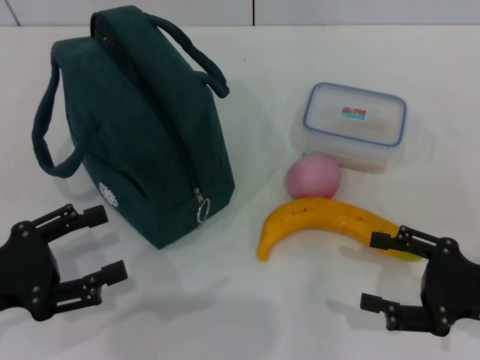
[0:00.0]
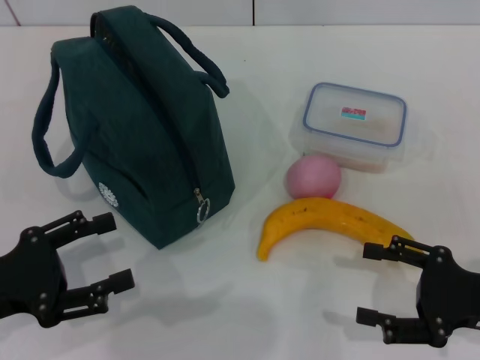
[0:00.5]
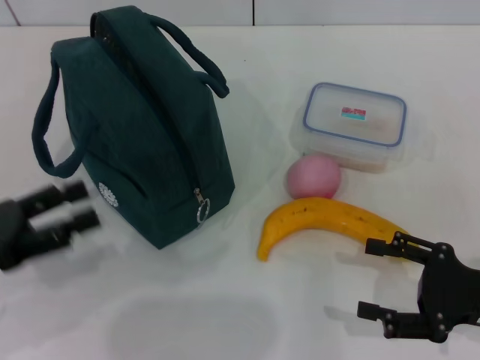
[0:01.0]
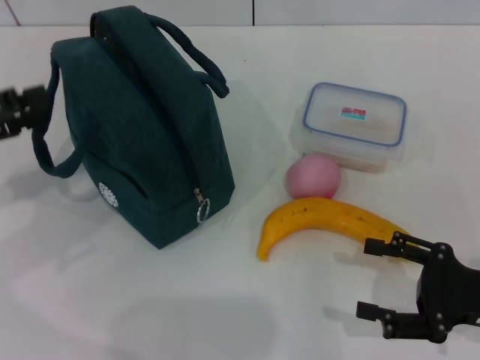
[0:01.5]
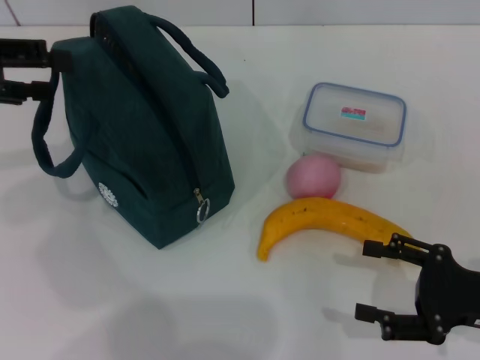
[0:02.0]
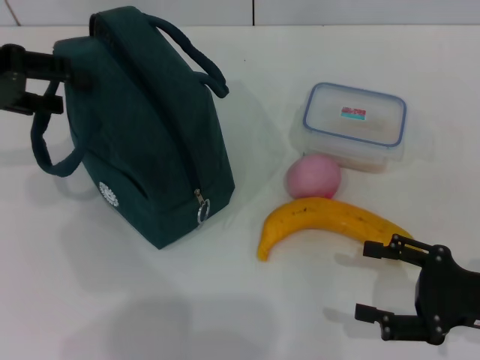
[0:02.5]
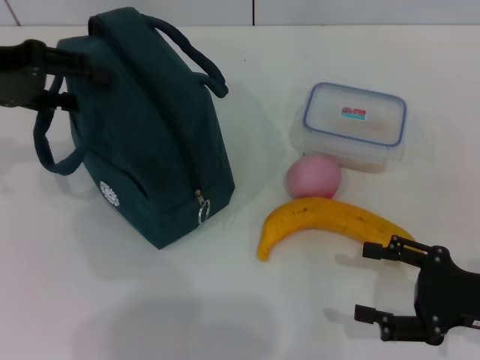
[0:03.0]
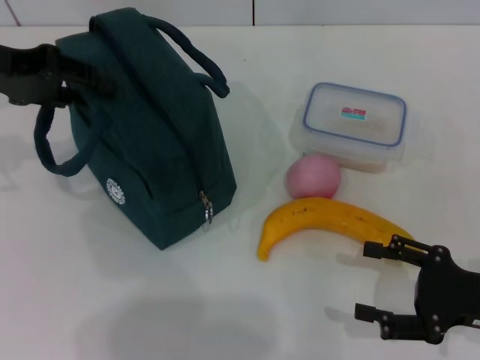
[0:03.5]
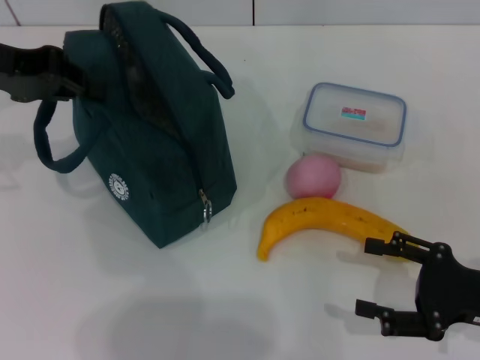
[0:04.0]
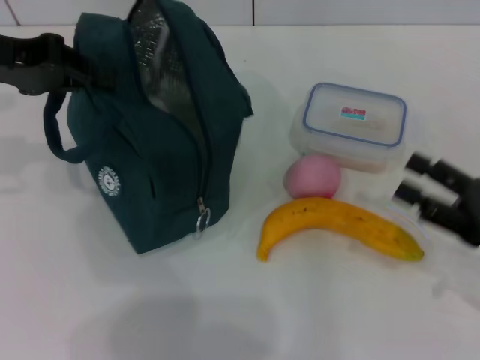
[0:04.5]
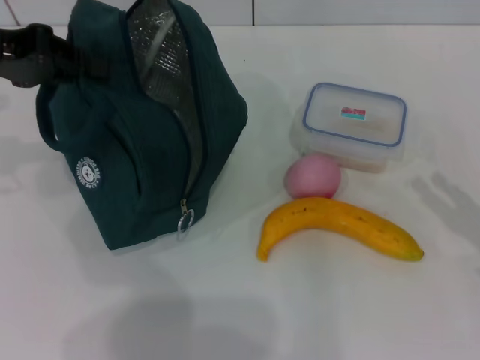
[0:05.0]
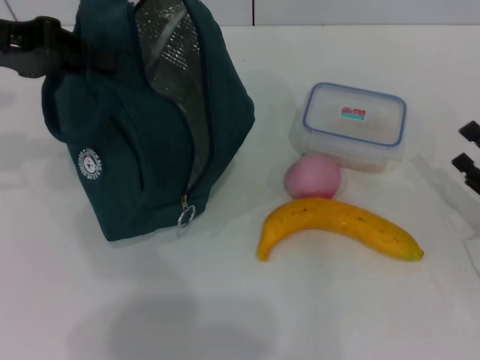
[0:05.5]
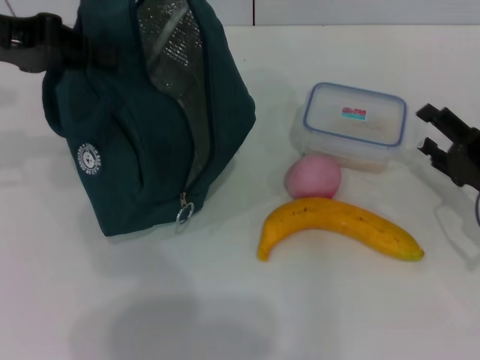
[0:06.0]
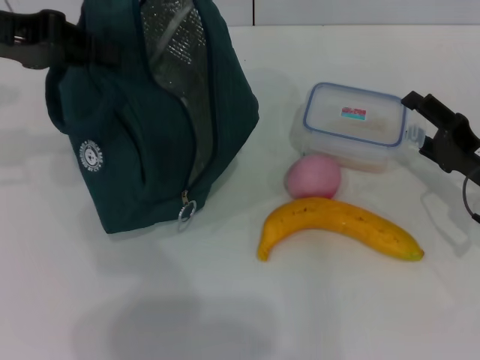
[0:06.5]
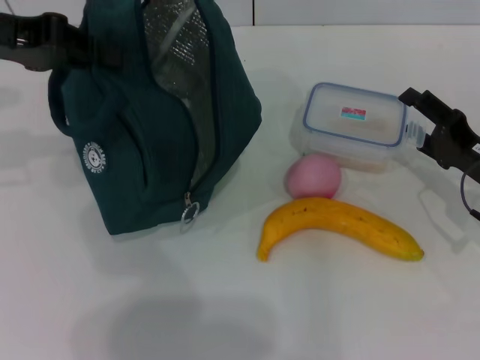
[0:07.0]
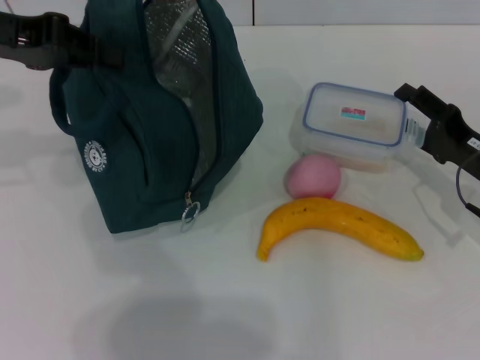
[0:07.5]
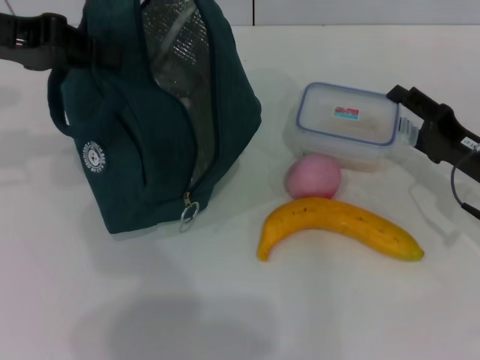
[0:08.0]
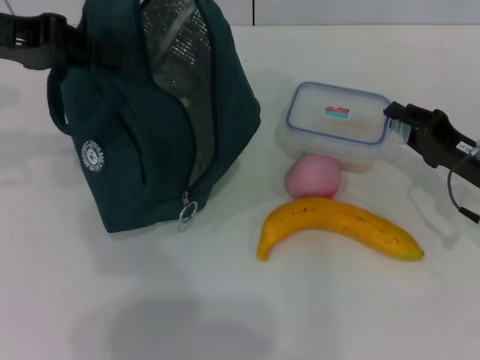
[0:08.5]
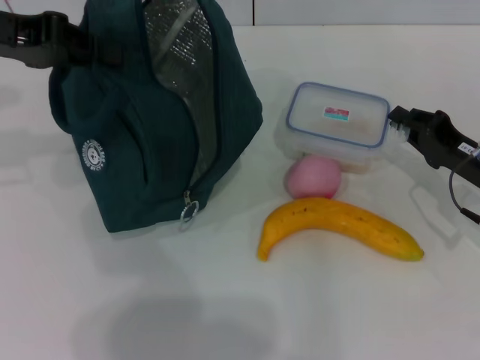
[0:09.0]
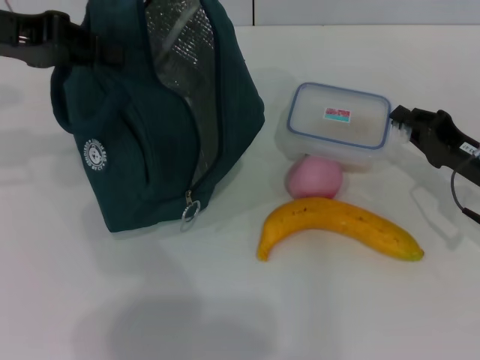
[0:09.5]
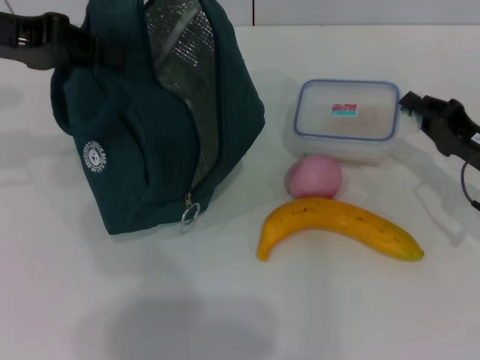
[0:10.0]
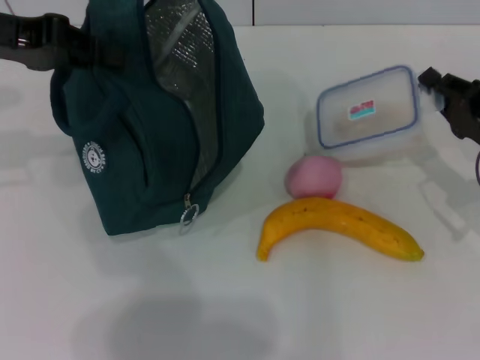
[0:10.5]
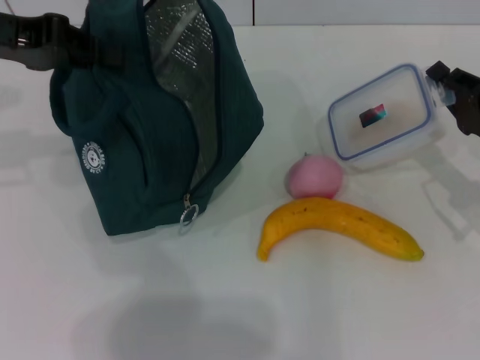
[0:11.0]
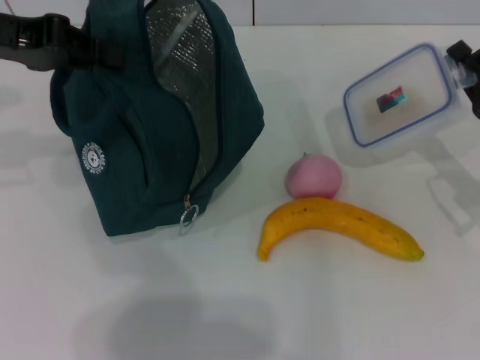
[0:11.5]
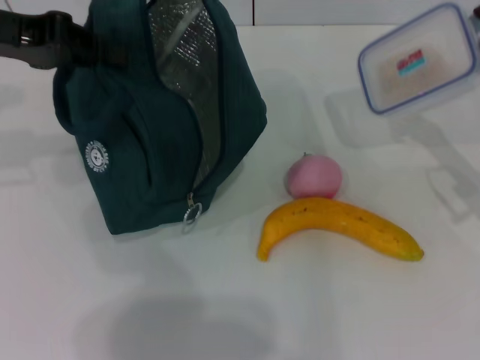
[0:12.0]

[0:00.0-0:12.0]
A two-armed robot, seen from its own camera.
Step, 0:00.0 to 0:04.0: Hold the lunch bag with your left hand.
Step, 0:04.5 to 0:08.5: Pick up the lunch box with your right hand.
0:00.0 to 0:02.0: The left gripper heads forward and upward, covering some 20 cm.
0:02.0 to 0:04.0: The left gripper changes place by about 5 cm, and closes up.
0:04.0 to 0:06.0: The right gripper is displaced forward by about 10 cm.
0:06.0 to 0:08.0: The grippers make only small movements.
0:08.0 to 0:10.0: The right gripper closes up.

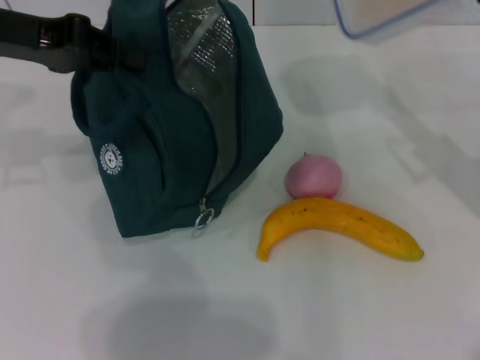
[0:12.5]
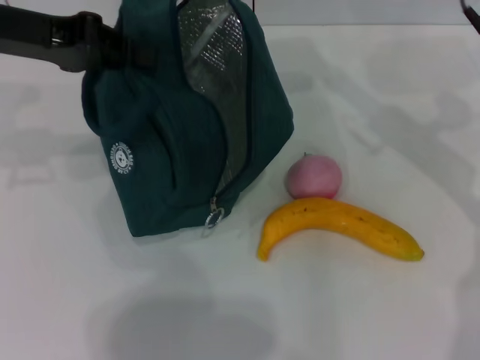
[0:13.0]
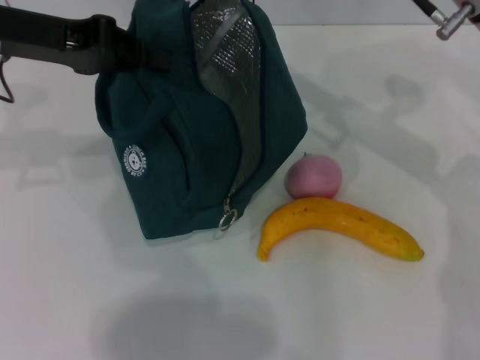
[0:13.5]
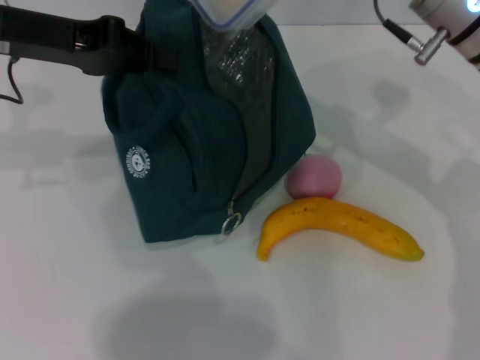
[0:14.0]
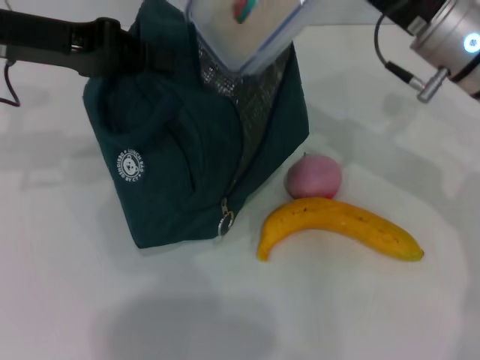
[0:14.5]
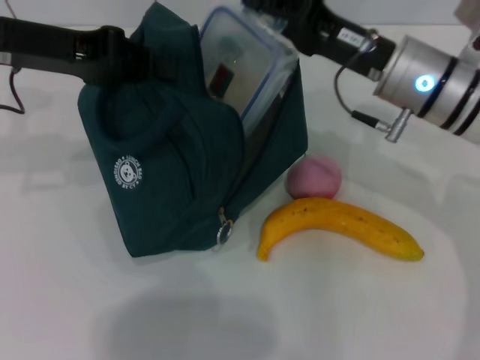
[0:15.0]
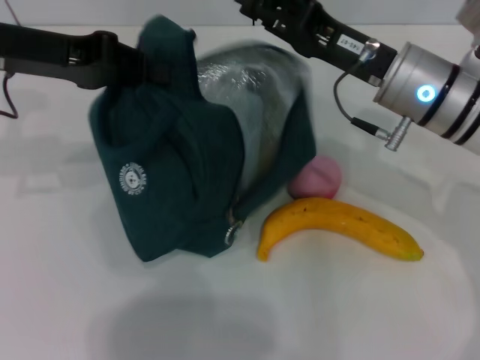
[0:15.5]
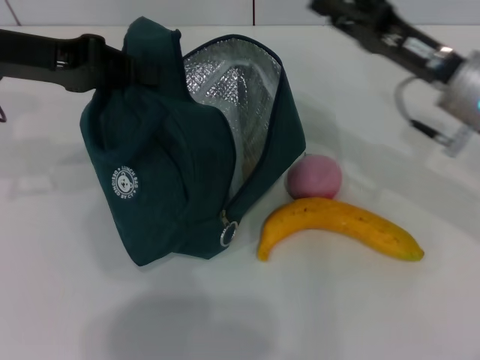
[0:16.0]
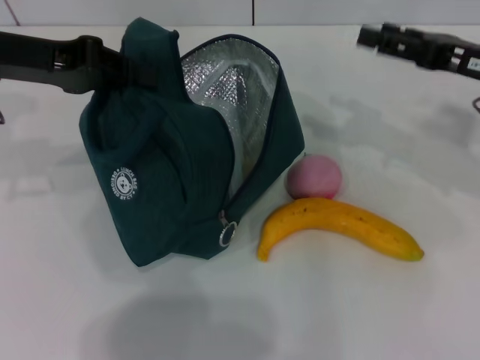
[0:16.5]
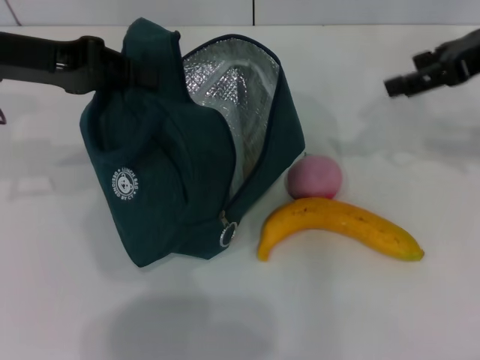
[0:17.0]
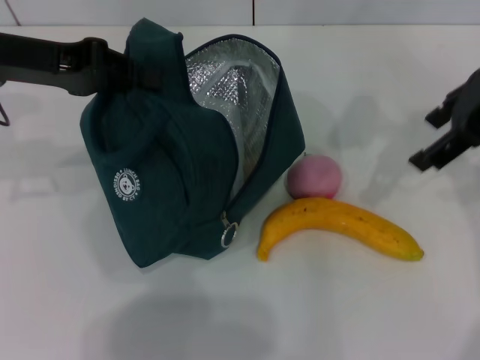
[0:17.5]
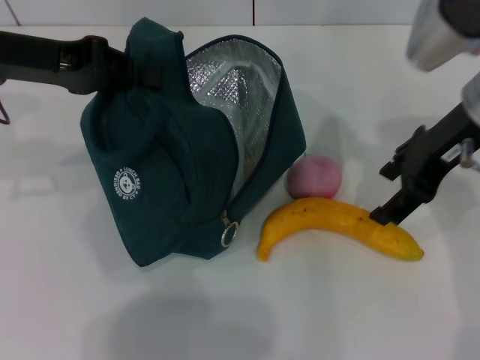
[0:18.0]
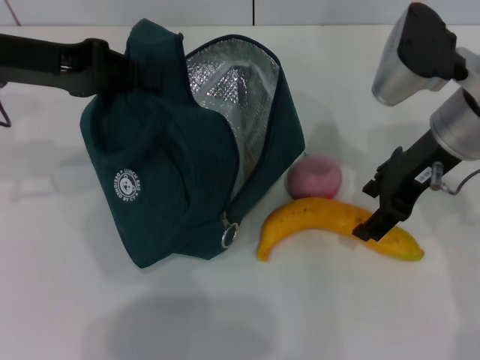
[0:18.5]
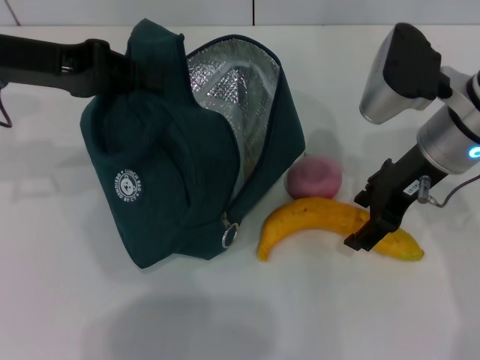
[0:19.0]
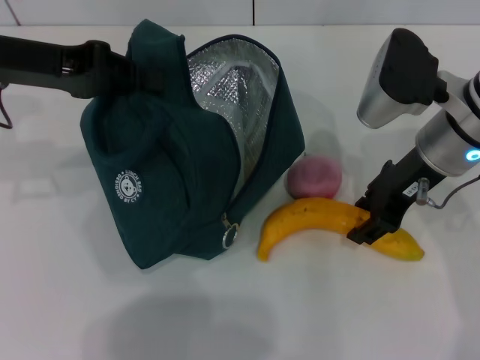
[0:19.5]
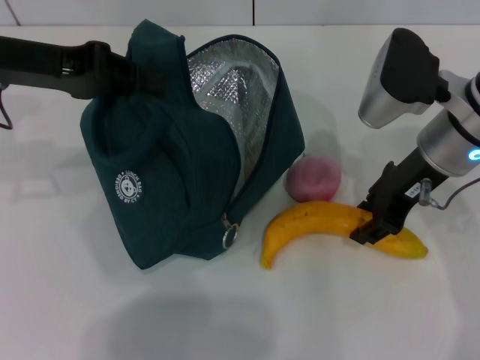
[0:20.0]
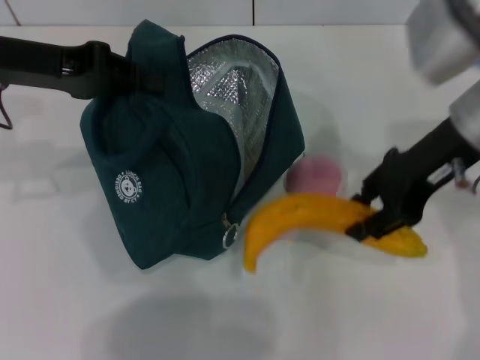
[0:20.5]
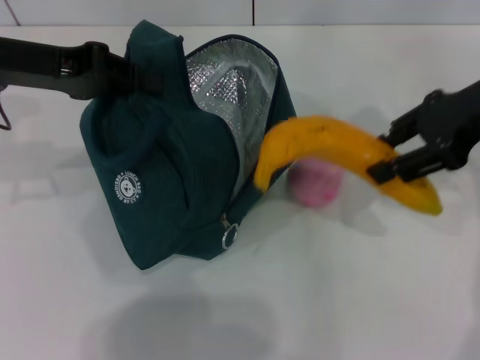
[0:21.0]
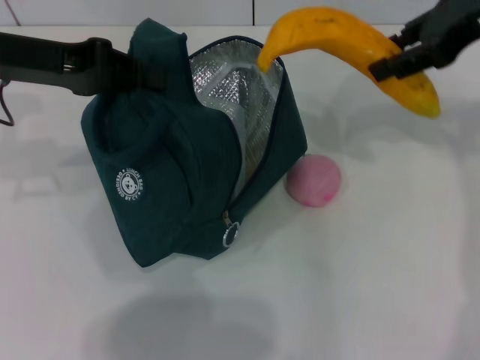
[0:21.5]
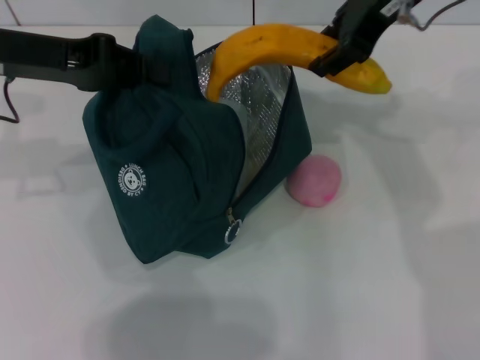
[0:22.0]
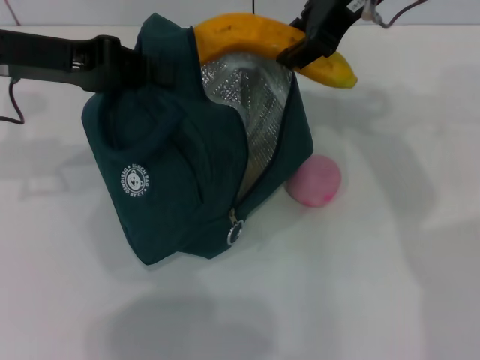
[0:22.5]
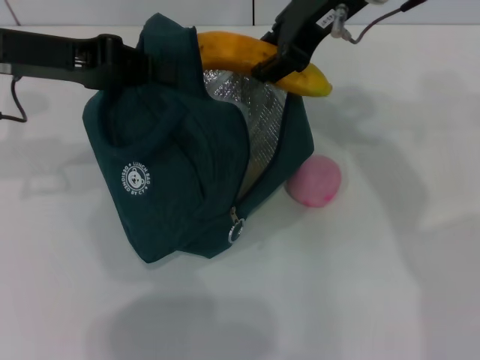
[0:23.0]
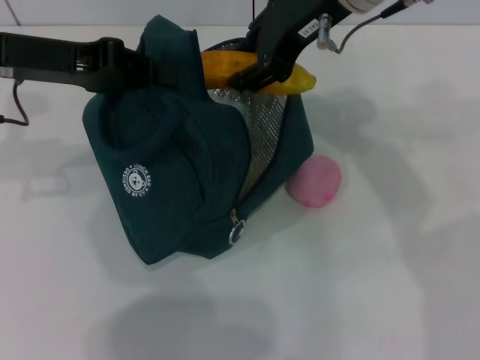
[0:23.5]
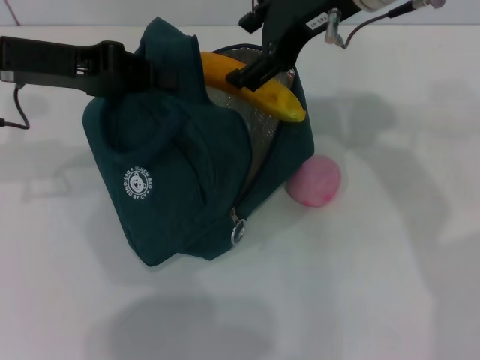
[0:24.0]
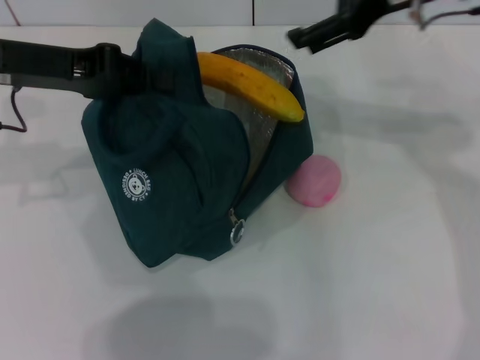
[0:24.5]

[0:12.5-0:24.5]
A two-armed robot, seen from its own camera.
Step, 0:12.5 to 0:16.0: Place the lunch box into the lunch bag with your right hand.
Step, 0:16.5 to 0:19.5: Take the banana with your right hand.
Step, 0:20.0 to 0:24.0: Put the banana into the lunch bag with your right hand.
0:12.5 to 0:14.5: The right gripper goes roughly 10 cm to the left.
0:14.5 to 0:16.5: The right gripper moves to the right, about 10 cm, and opens up.
0:16.5 to 0:18.5: The right gripper shifts about 10 cm to the left, and travels upward and back again, some 10 cm each way.
0:18.5 to 0:20.5: The right gripper closes its fingers.
0:20.5 to 0:22.5: The right gripper heads upward, to the left and forward, covering approximately 15 cm.
0:22.5 to 0:24.5: The right gripper shifts some 5 cm to the right, and opens.

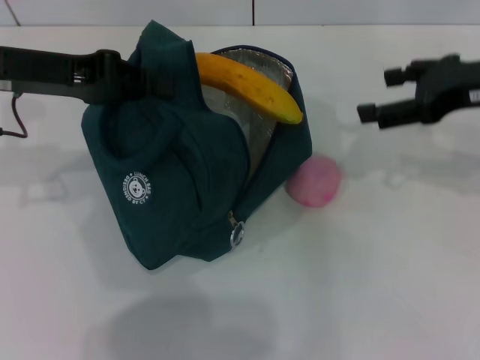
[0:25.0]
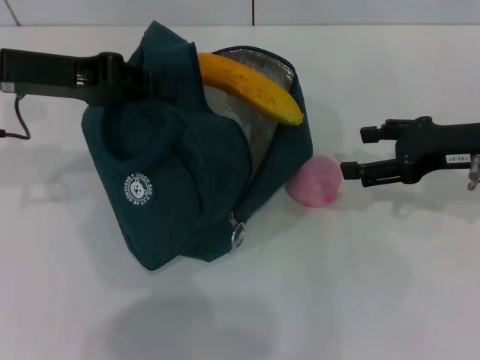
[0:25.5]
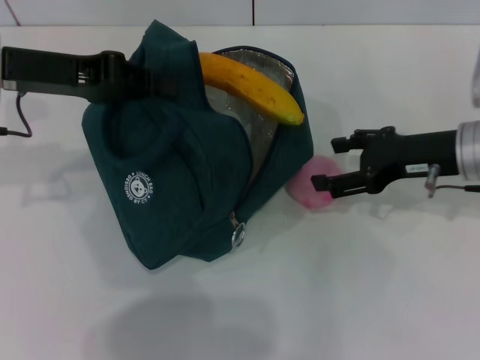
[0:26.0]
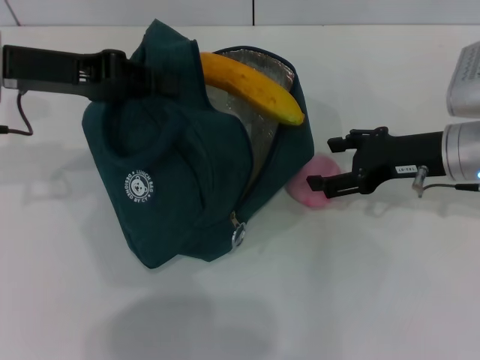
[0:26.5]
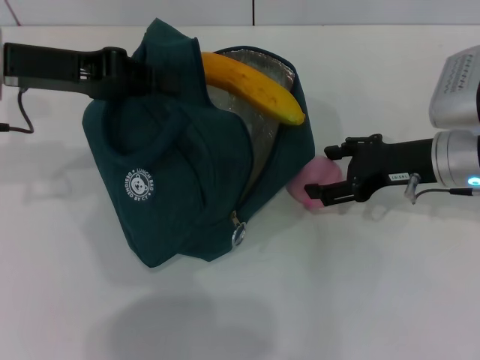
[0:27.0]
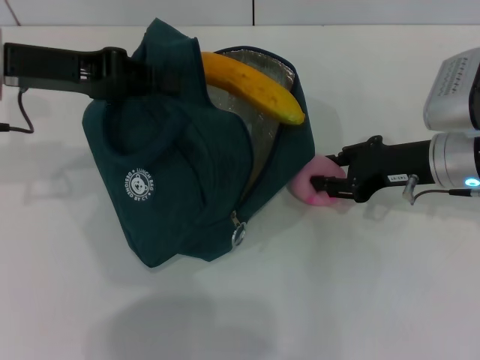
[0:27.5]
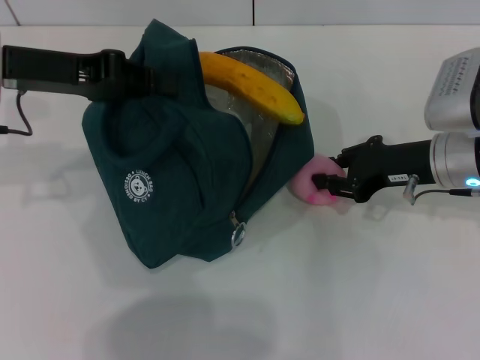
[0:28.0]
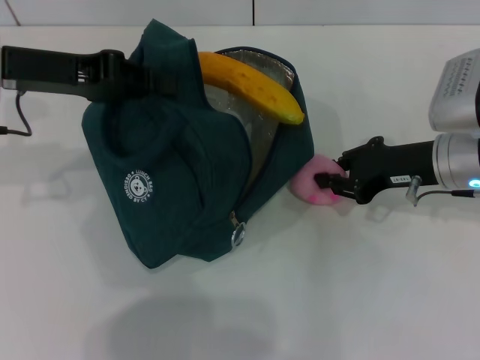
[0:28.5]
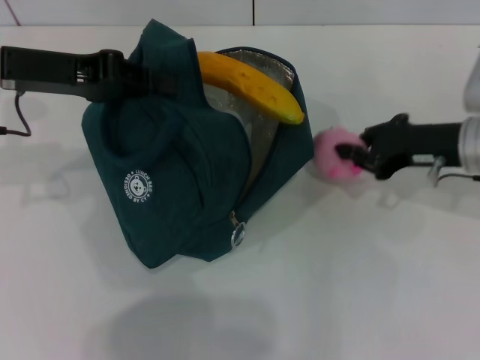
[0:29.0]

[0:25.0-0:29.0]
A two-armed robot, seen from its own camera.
Step, 0:25.0 to 0:28.0: Grab the peach with your right hand.
0:25.0 to 0:27.0: The right gripper moves downward, roughly 10 cm.
0:27.0 to 0:29.0: The right gripper closes up.
